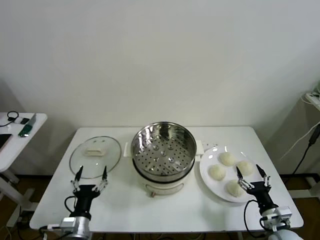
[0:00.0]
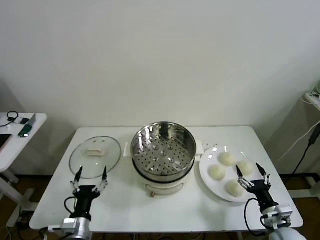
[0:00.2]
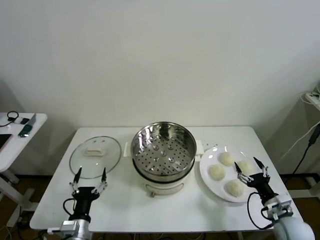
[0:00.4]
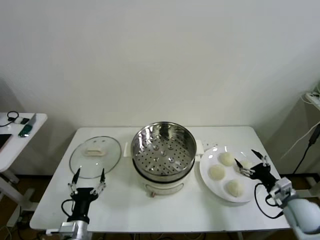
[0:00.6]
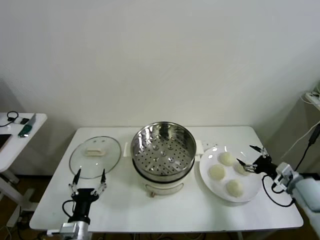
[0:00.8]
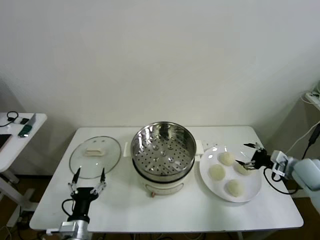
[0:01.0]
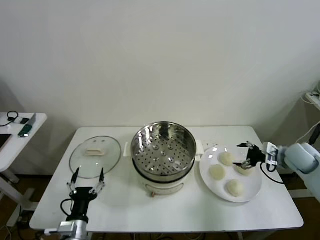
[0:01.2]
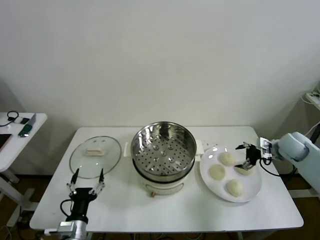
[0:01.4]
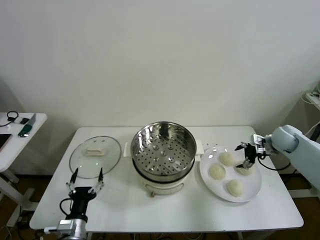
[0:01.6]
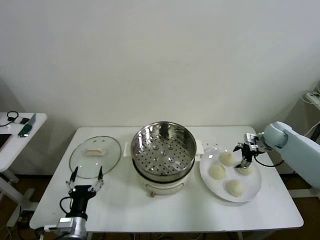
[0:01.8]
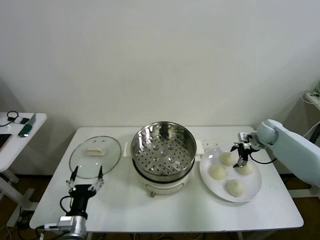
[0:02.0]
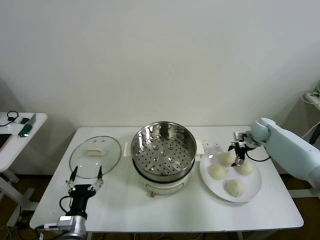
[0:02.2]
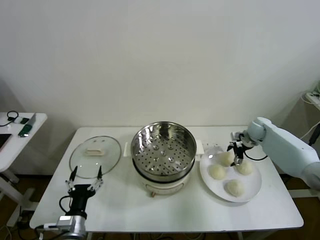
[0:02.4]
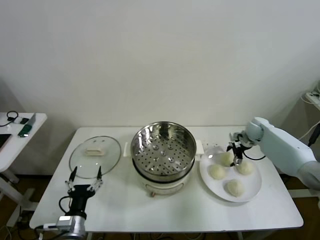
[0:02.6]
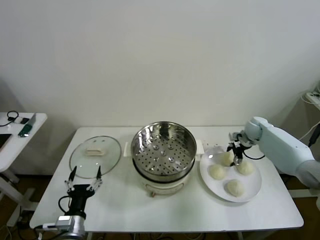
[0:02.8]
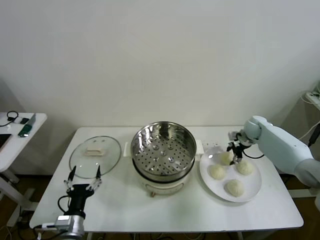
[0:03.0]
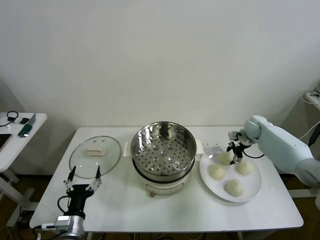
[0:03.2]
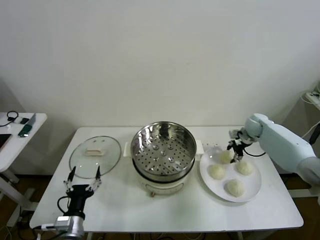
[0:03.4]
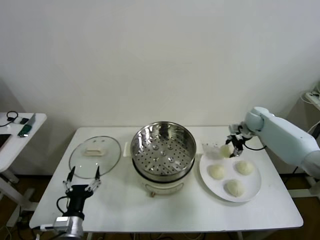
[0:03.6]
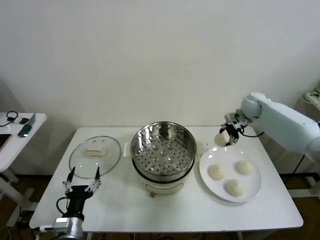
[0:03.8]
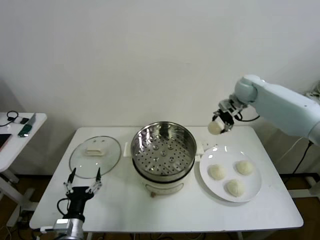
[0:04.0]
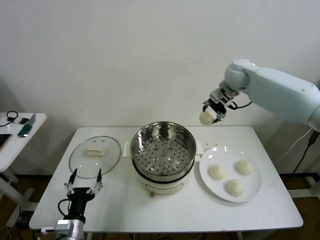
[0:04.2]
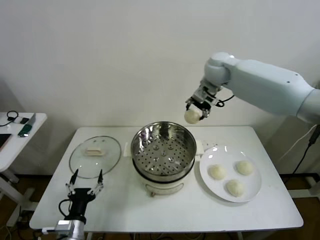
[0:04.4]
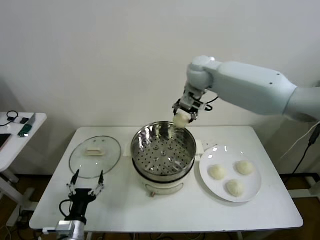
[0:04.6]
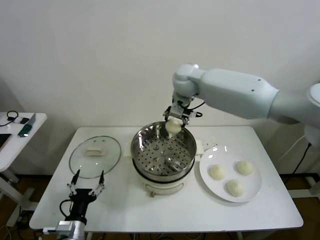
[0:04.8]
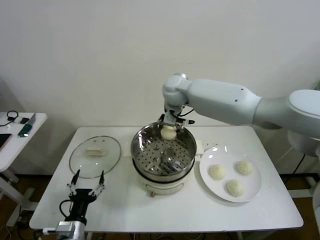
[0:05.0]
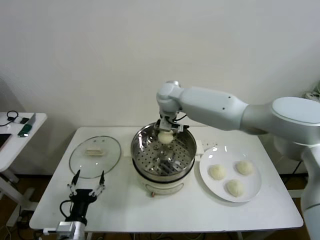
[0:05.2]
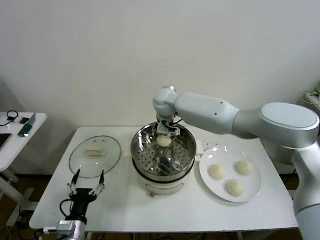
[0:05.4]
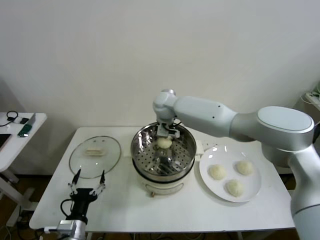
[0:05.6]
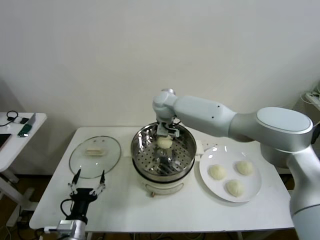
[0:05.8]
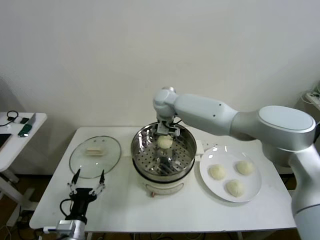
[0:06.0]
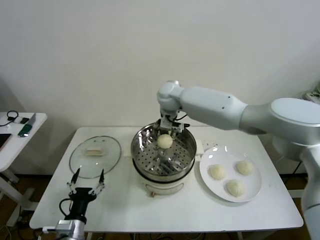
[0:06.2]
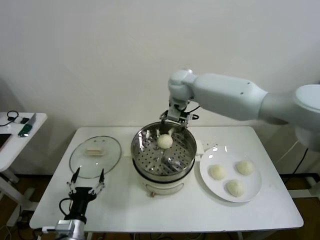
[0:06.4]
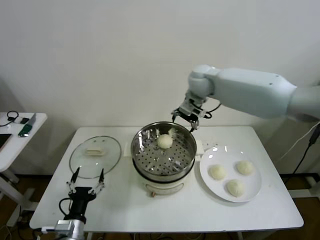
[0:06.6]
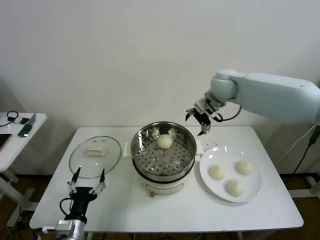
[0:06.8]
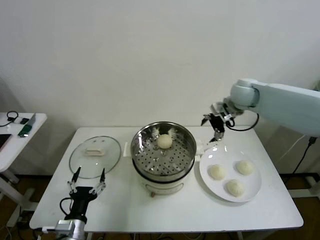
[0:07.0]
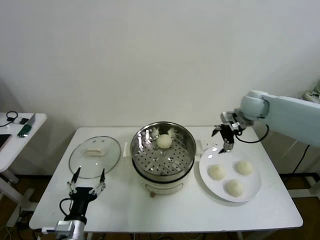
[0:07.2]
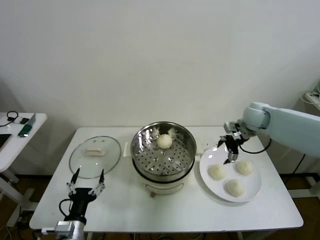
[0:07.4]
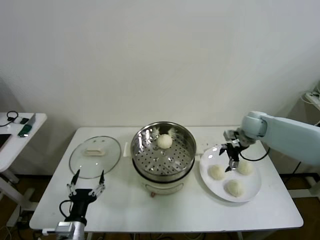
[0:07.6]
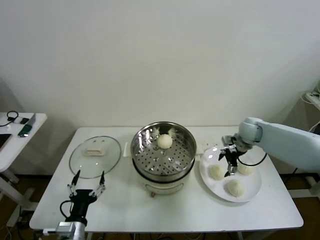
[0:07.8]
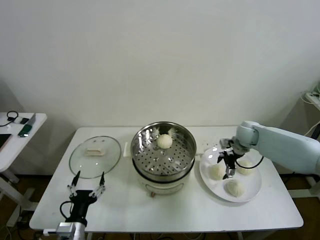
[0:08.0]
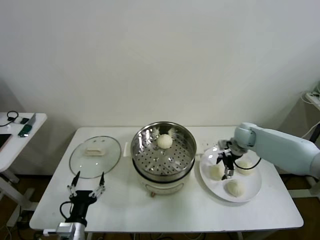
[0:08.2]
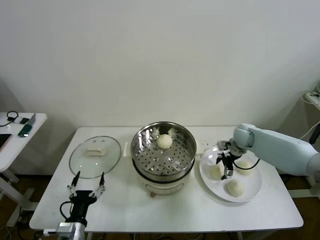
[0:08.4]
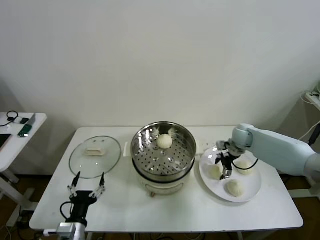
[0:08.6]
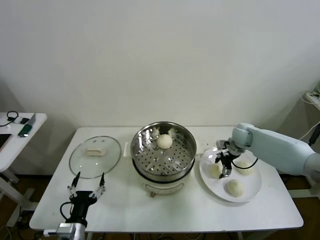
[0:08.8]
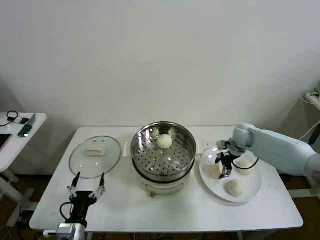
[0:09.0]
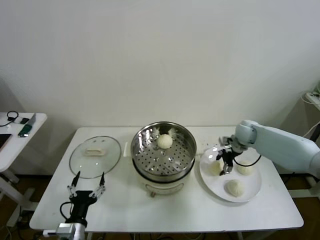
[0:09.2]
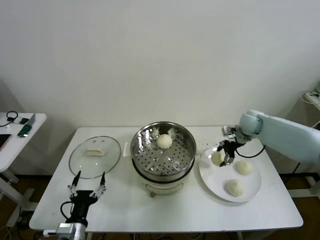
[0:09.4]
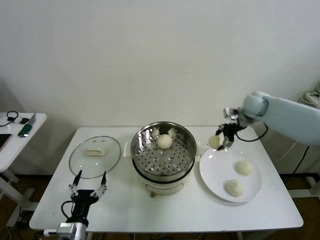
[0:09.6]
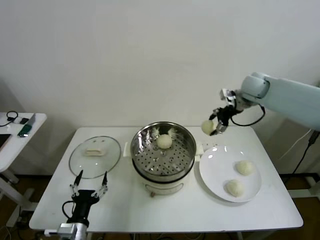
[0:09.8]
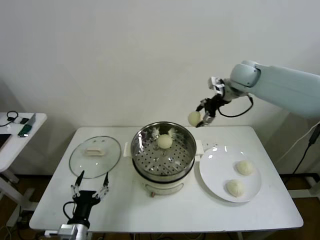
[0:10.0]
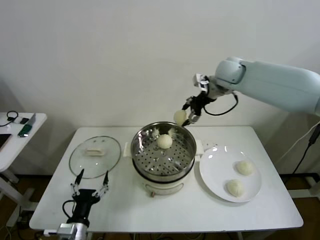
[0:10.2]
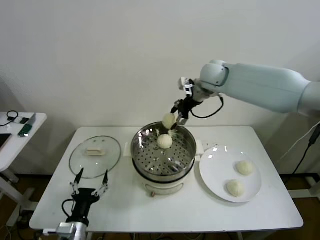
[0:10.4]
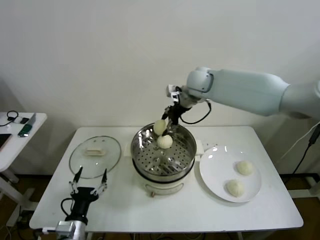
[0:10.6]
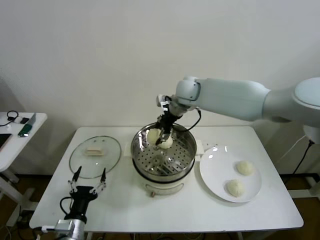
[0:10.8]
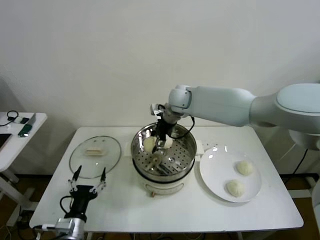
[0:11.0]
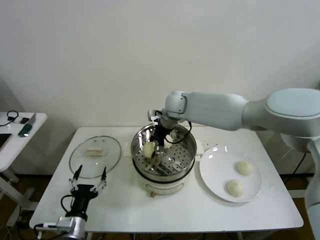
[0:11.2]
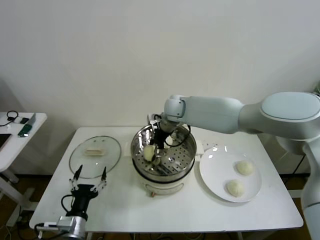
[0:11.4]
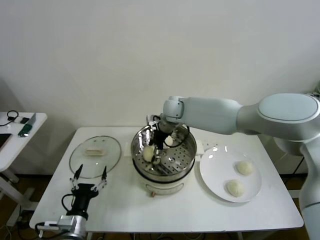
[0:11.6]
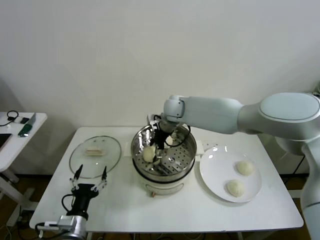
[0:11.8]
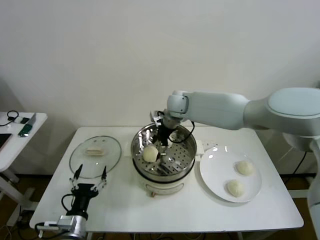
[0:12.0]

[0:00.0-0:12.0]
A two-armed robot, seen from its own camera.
Task of the whole recording: take steamed baozi put them in steamer then cover it.
Step, 0:00.0 to 0:03.0: Grasp the baozi in the plate with right gripper.
Step, 0:03.2 to 0:05.6: Place the baozi on the steamer with right gripper.
Step, 0:06.0 to 0:08.6: Grasp the baozi in the plate with right gripper.
Step, 0:08.8 to 0:12.0: Place the baozi on the steamer with right gripper.
0:01.6 to 0:03.0: The right gripper heads forward and to the left, covering about 10 cm, and closes.
0:03.0 to 0:04.4: The right gripper goes roughly 35 cm upward and to the left.
0:04.4 to 0:06.0: The right gripper shifts roughly 20 cm to the left and downward, and opens up.
0:06.0 to 0:07.6: The right gripper moves to the right, roughly 35 cm.
0:07.6 to 0:09.0: The right gripper heads downward, covering roughly 5 cm, and closes.
0:09.0 to 0:10.4: The right gripper heads upward and to the left, covering about 30 cm.
0:10.4 to 0:12.0: The right gripper is displaced downward and to the left by about 15 cm, and opens up.

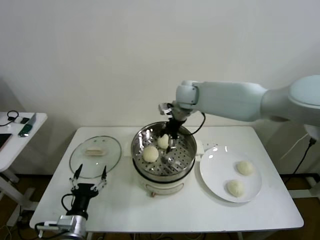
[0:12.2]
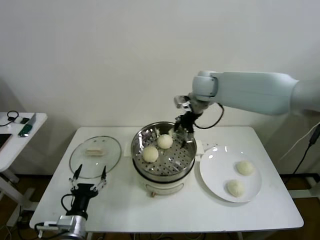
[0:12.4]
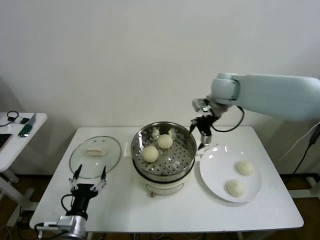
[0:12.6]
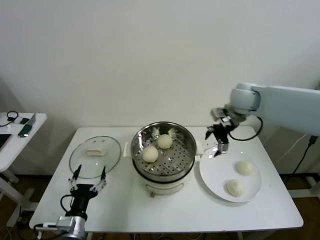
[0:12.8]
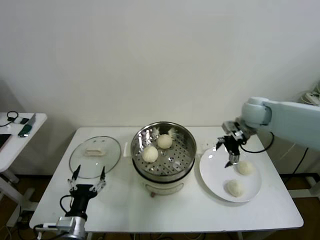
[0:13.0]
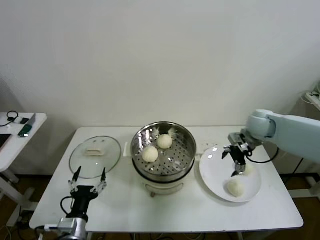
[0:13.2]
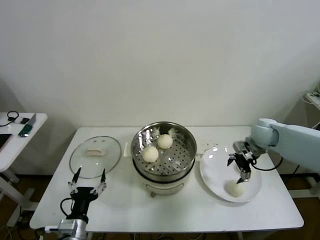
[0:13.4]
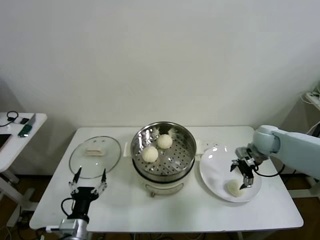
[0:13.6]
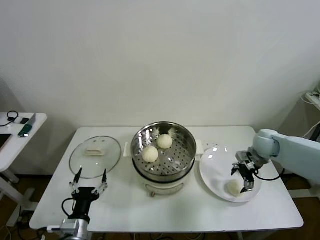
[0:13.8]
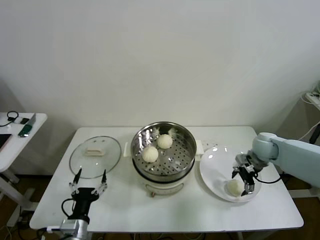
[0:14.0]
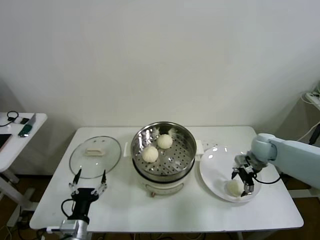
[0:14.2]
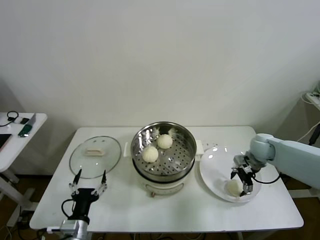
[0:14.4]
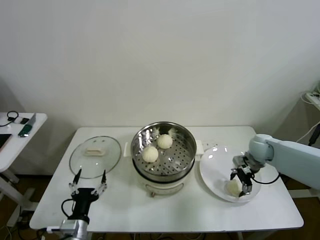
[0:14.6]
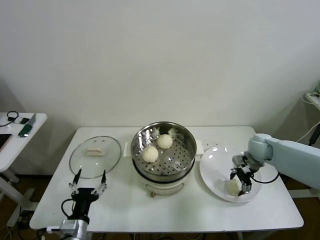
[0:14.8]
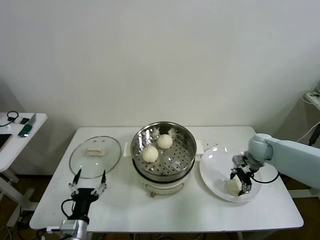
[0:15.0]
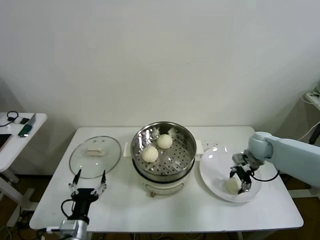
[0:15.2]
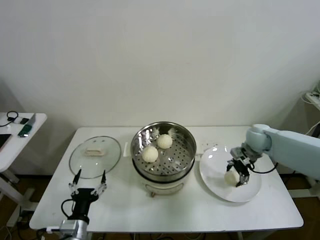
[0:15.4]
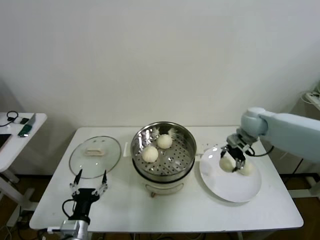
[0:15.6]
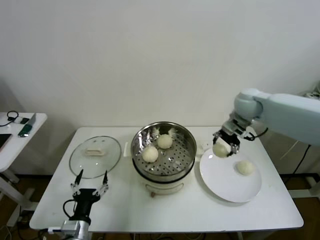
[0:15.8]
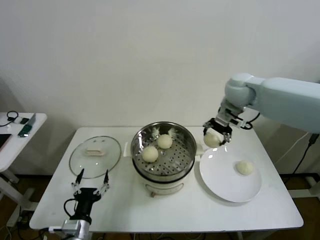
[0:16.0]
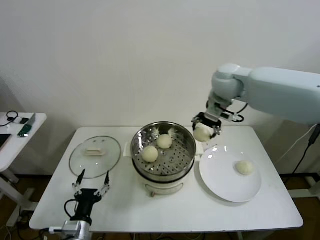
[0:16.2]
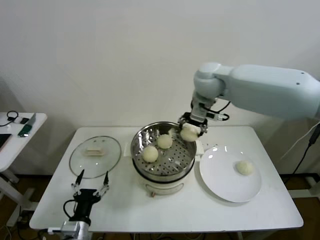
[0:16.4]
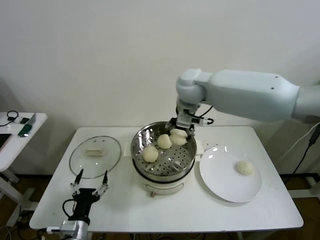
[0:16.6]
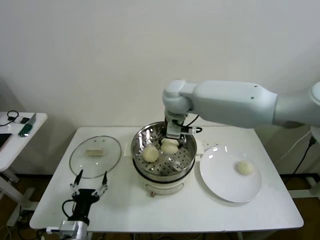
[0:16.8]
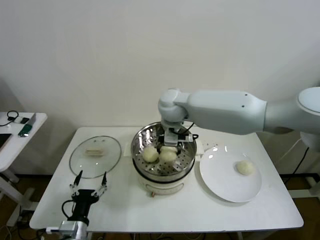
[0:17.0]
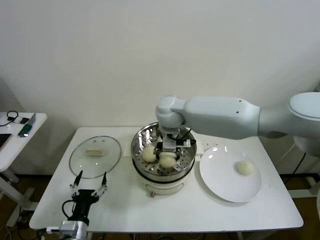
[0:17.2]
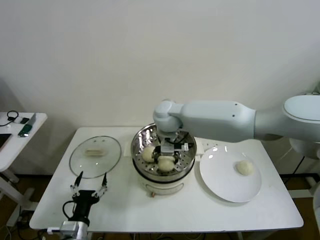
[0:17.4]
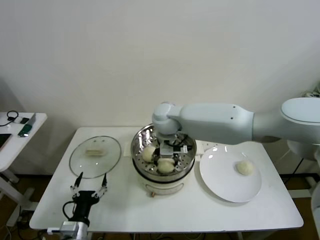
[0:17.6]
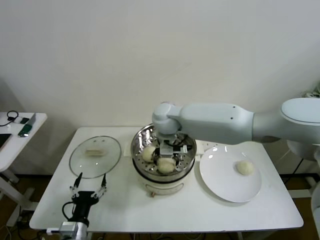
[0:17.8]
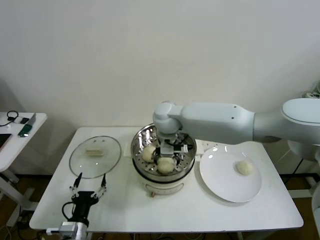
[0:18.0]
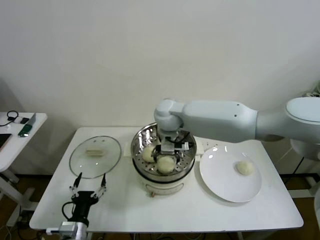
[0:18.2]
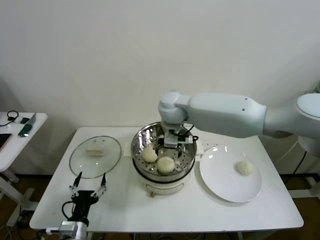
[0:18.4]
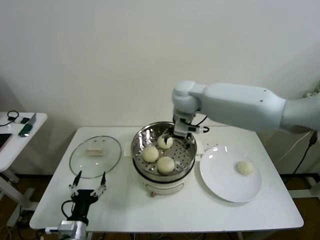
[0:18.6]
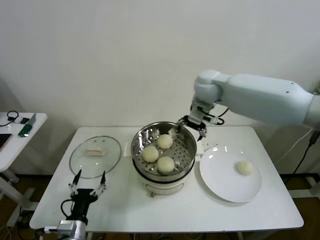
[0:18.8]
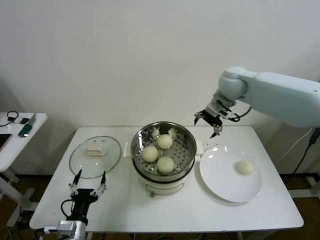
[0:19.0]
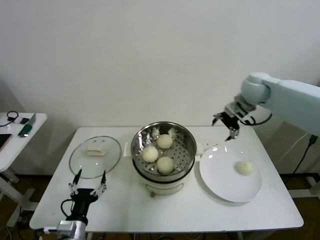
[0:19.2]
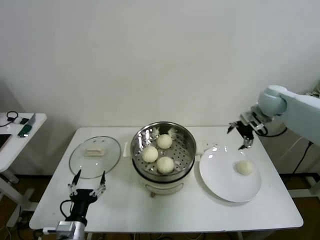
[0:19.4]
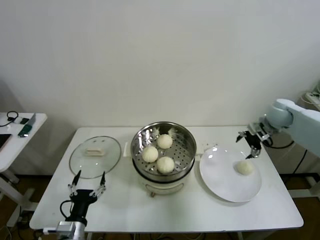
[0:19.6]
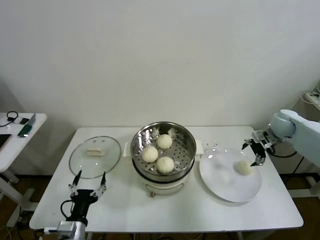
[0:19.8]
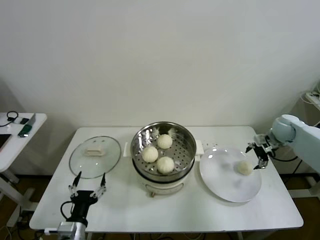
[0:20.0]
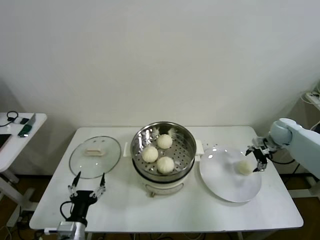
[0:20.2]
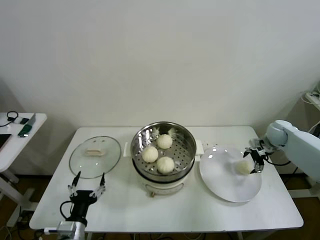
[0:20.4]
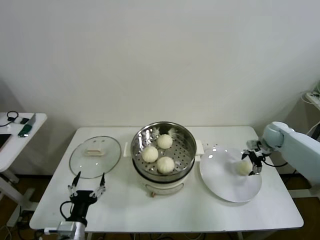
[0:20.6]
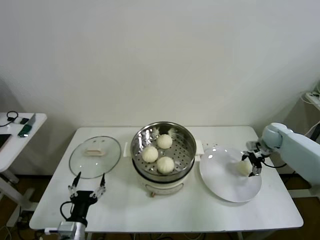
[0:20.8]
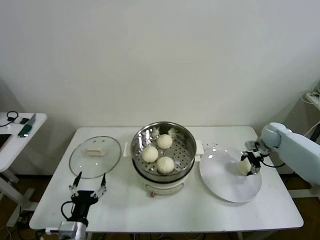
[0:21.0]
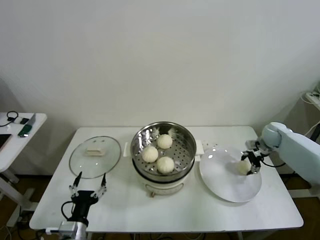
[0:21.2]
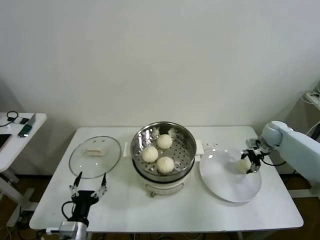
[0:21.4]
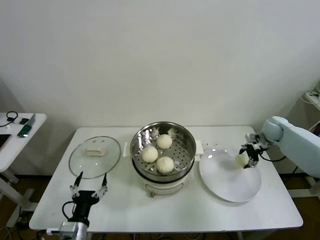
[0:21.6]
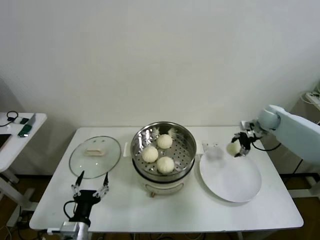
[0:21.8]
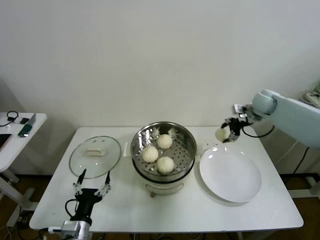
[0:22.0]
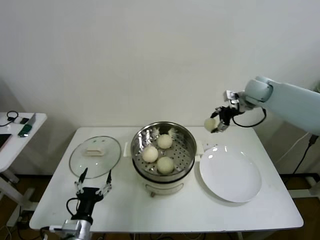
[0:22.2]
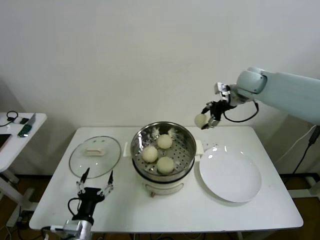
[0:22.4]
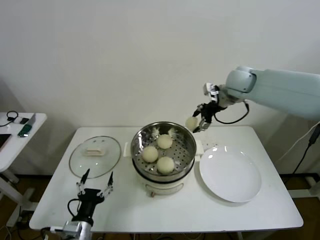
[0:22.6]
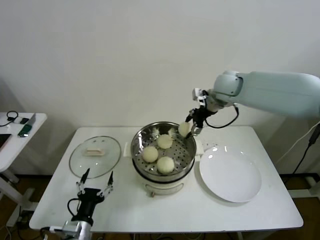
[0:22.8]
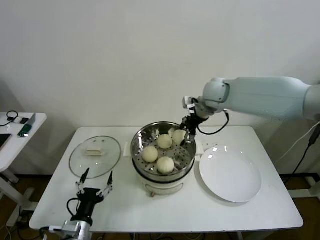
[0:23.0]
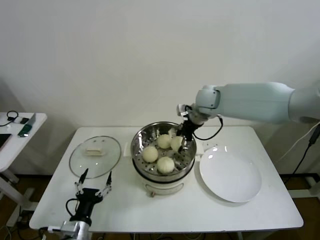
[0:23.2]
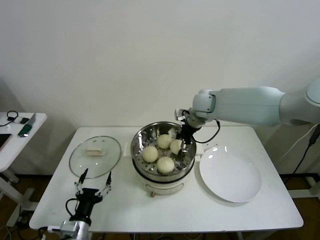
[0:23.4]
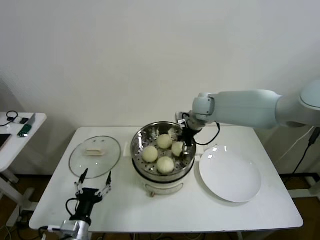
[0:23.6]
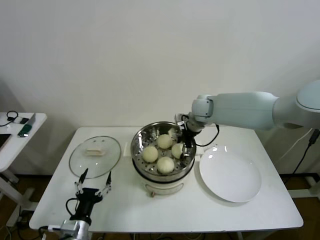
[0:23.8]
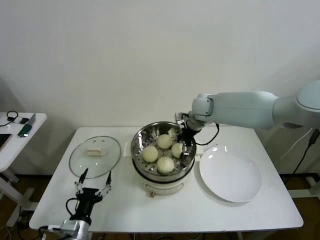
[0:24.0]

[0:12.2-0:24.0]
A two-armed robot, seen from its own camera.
Task of the whole recording: take steamed baozi put them in steamer then cover it.
Step, 0:12.2 to 0:14.8: Grasp the baozi in the plate with right gripper.
Step, 0:15.2 to 0:18.0: Place the baozi on the steamer with right gripper.
Step, 0:18.2 to 0:21.2: Grasp the baozi in the plate with right gripper.
0:12.2 to 0:13.6: The right gripper heads to the right and downward, covering approximately 30 cm.
0:13.6 to 0:15.2: The right gripper closes its fingers.
0:15.2 to 0:16.6: The right gripper moves to the left and upward, some 35 cm.
0:16.6 to 0:18.2: The right gripper heads downward and to the left, covering approximately 10 cm, and opens up.
0:18.2 to 0:19.6: The right gripper goes about 40 cm to the right.
0:19.6 to 0:21.0: The right gripper moves downward, approximately 10 cm, and closes its fingers.
0:21.0 to 0:22.6: The right gripper shifts about 30 cm upward and to the left.
0:22.6 to 0:24.0: The right gripper goes about 15 cm downward and to the left, and opens its fingers.
